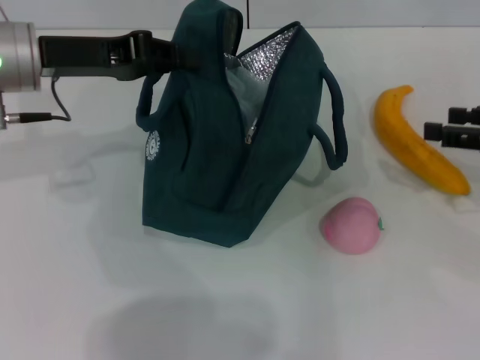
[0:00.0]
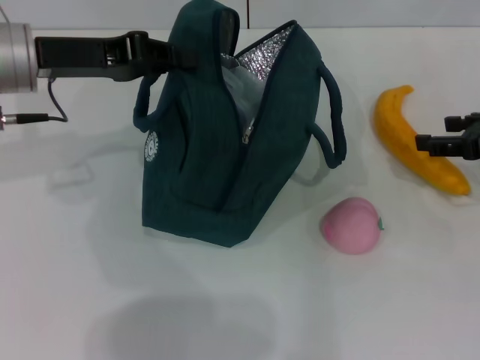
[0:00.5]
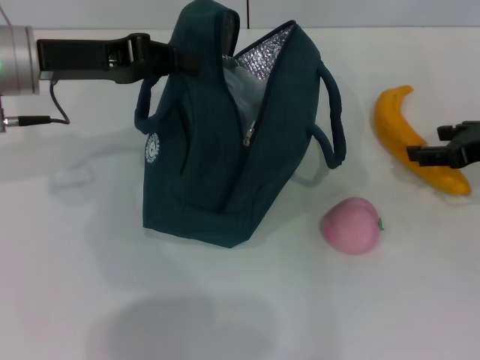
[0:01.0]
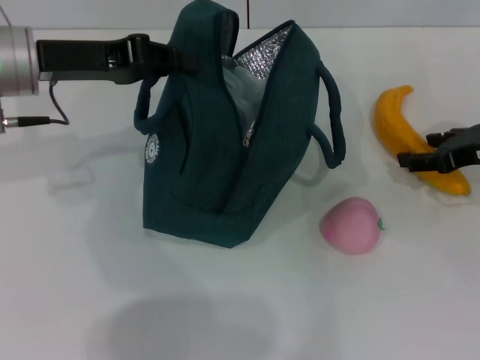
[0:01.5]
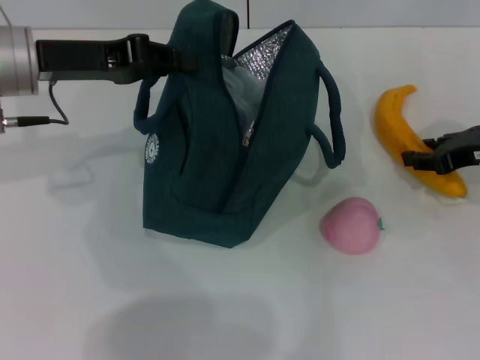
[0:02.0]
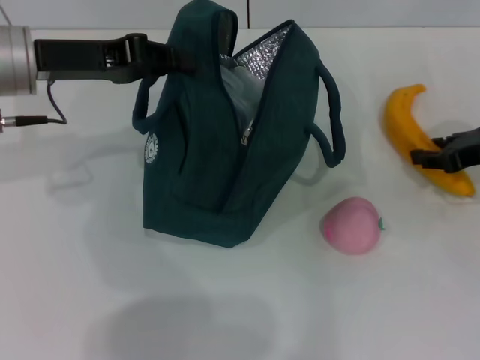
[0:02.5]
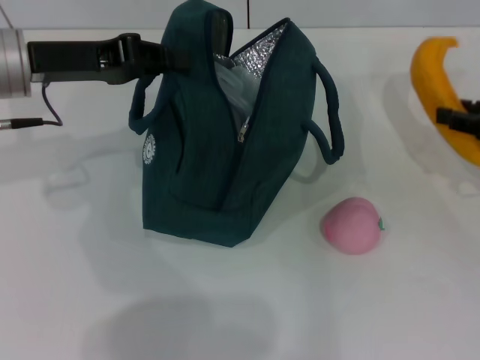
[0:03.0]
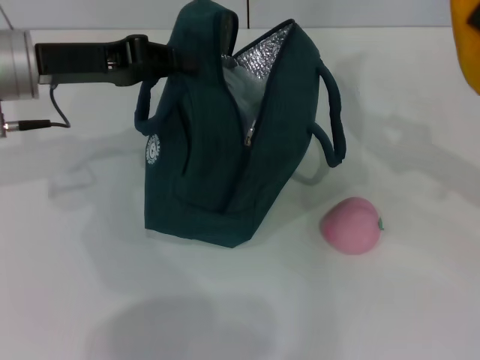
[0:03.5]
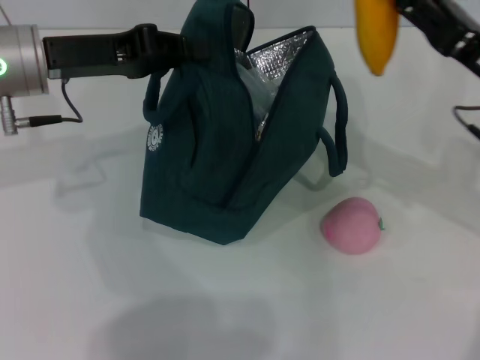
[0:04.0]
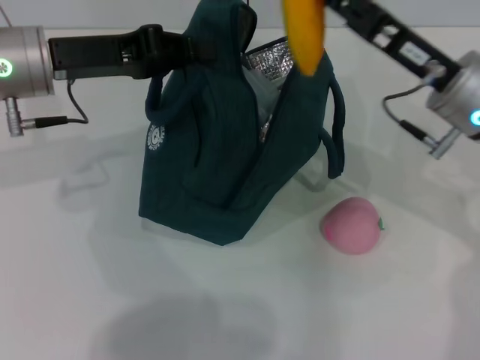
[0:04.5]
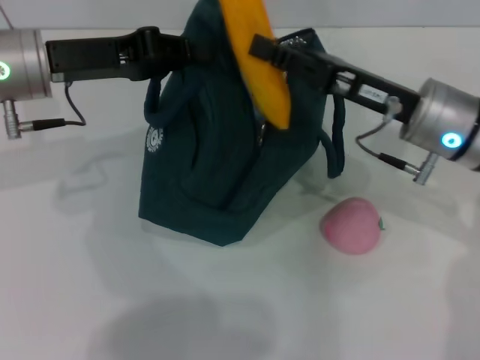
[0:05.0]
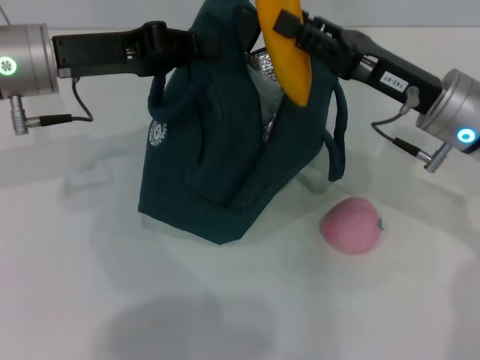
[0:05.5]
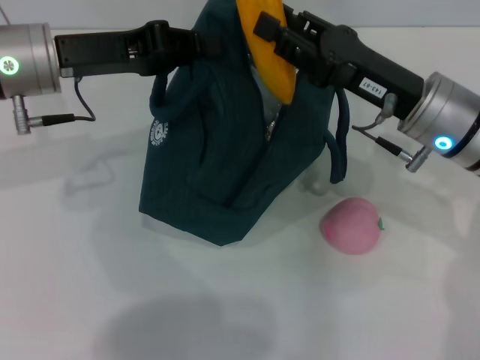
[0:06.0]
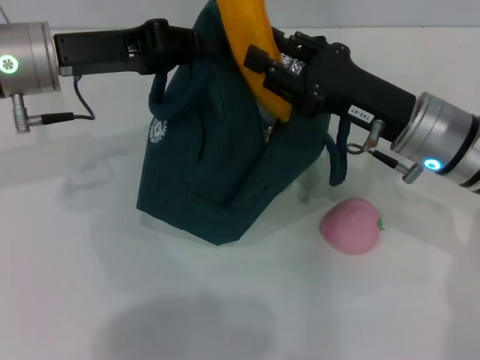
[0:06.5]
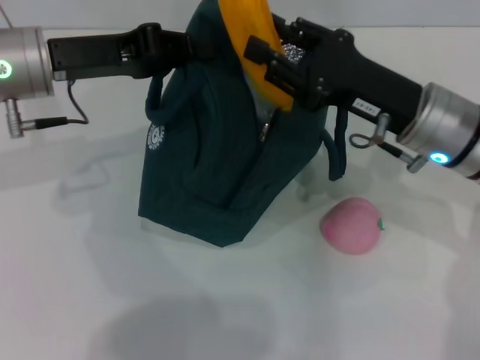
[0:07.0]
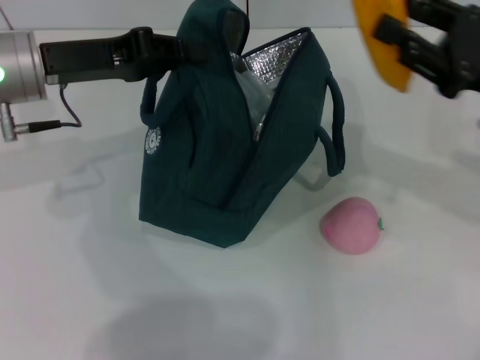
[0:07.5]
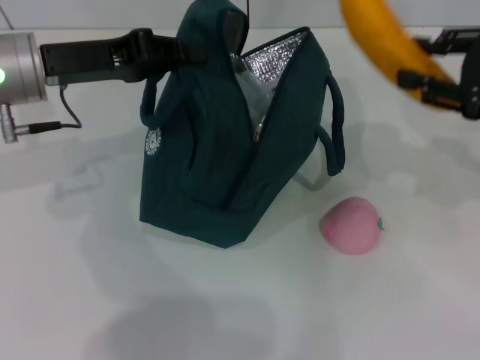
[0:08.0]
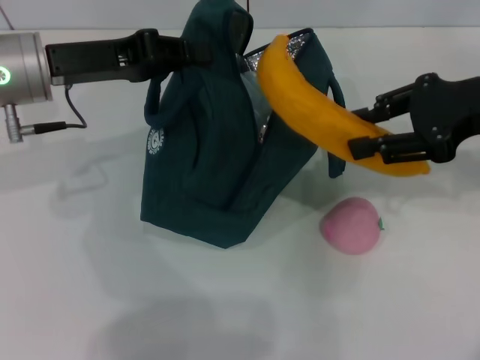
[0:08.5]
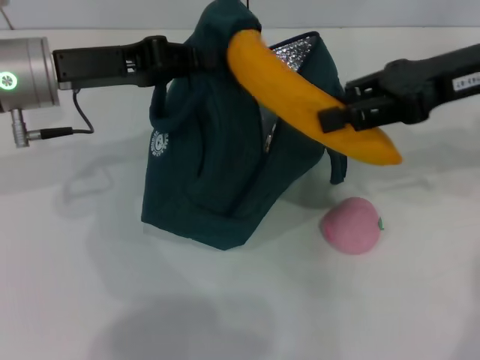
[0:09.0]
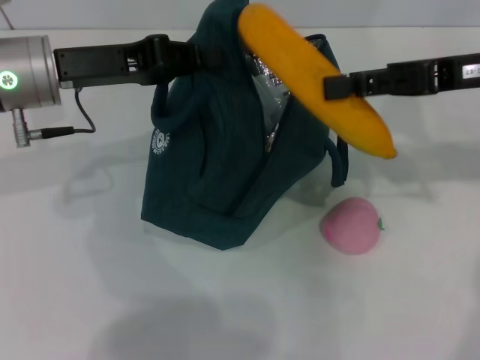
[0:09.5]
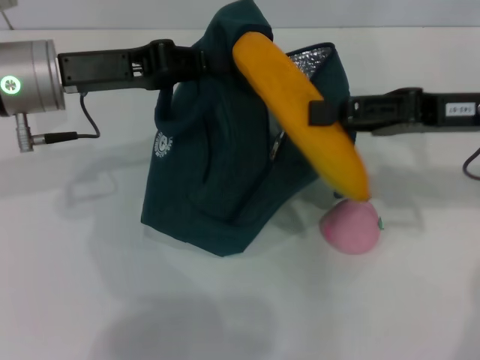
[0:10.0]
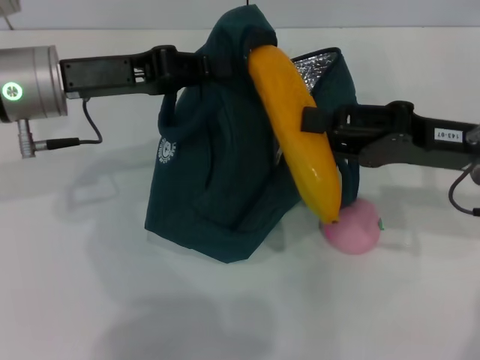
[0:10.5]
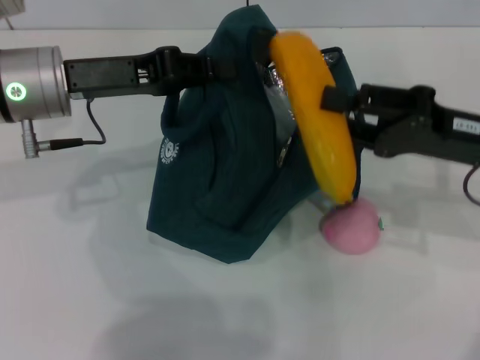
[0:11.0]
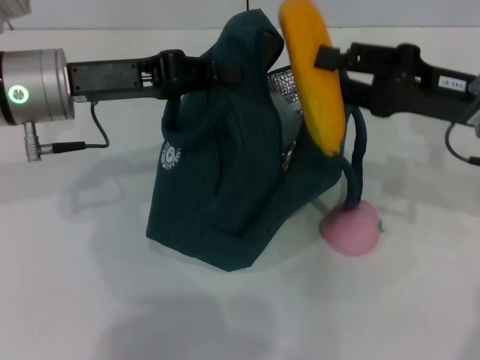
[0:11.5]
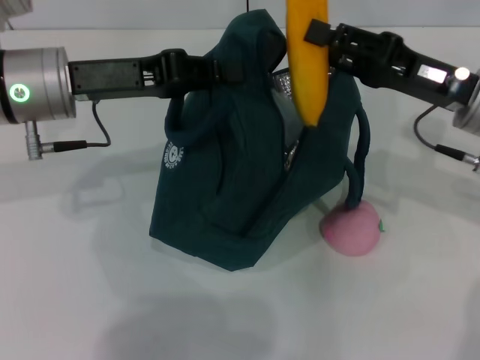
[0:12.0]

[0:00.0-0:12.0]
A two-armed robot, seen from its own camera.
0:00.0 to 0:02.0: The right gripper changes place by some 5 cm.
0:02.0 to 0:04.0: The right gripper ends up about 5 cm from where it was.
0:04.0 to 0:06.0: The right gripper goes approximately 10 cm to the left.
0:06.0 to 0:08.0: The right gripper shifts approximately 15 cm to the right and upward.
0:08.0 to 0:10.0: The right gripper is displaced to the left by about 5 cm.

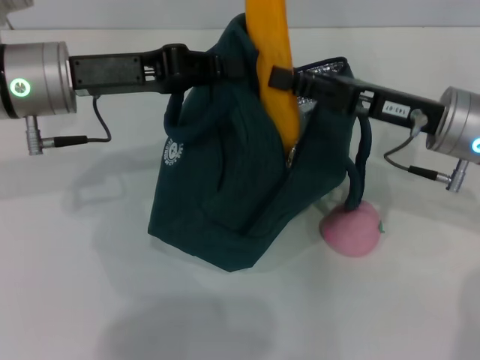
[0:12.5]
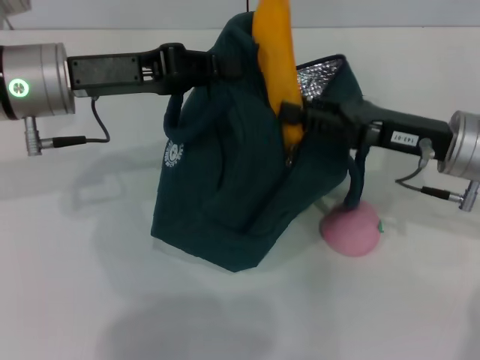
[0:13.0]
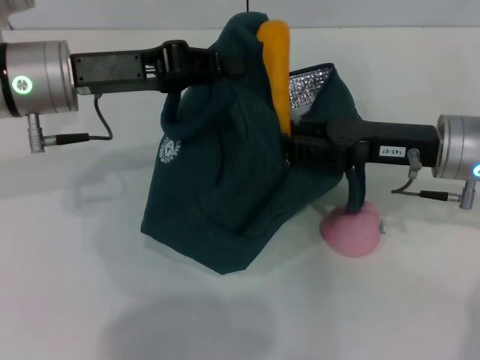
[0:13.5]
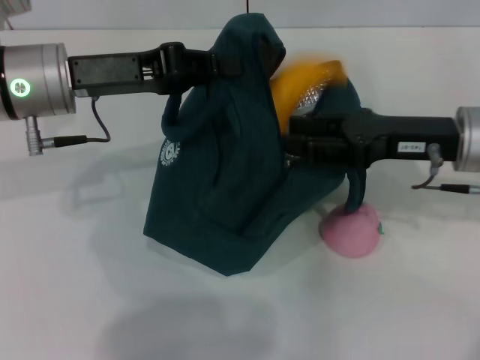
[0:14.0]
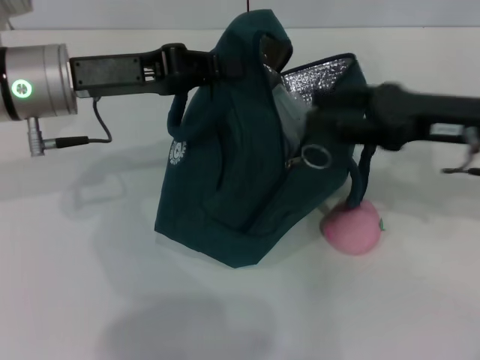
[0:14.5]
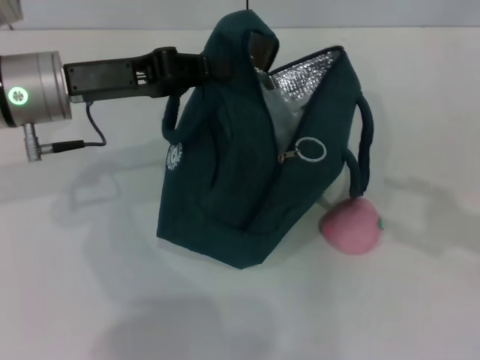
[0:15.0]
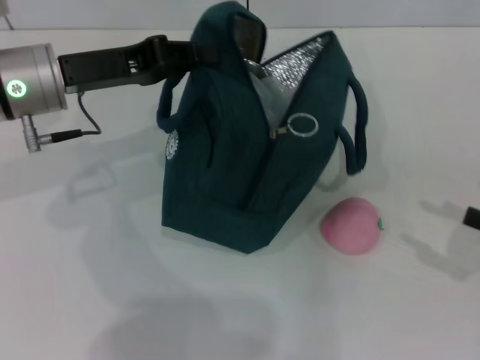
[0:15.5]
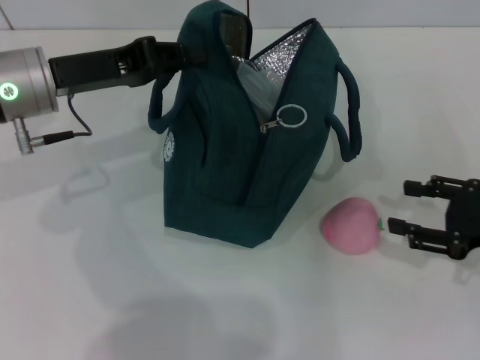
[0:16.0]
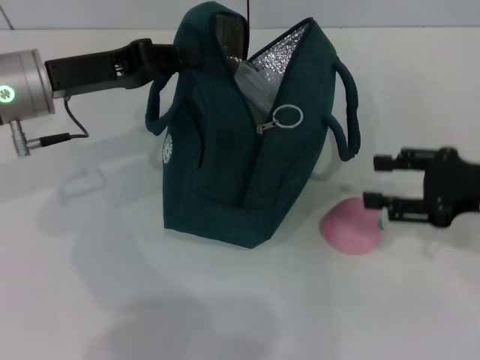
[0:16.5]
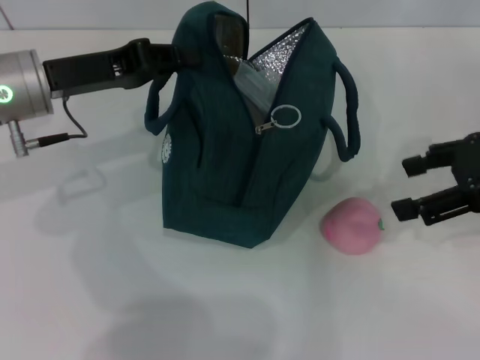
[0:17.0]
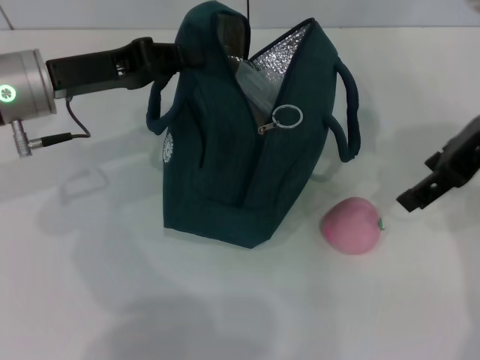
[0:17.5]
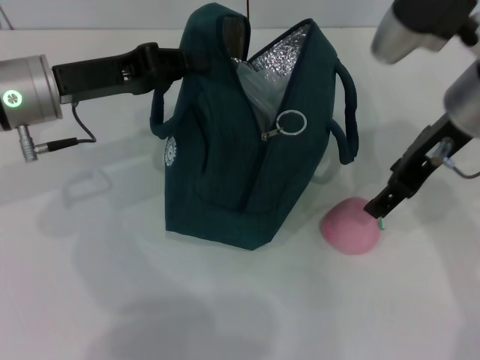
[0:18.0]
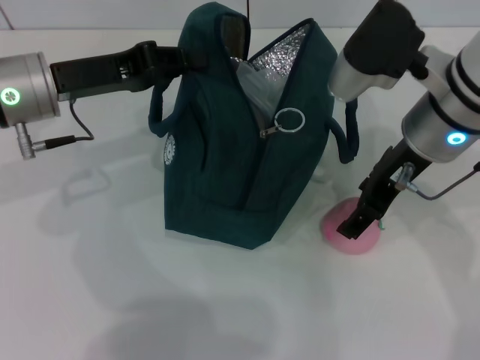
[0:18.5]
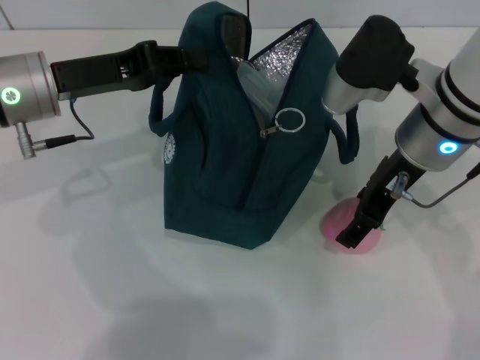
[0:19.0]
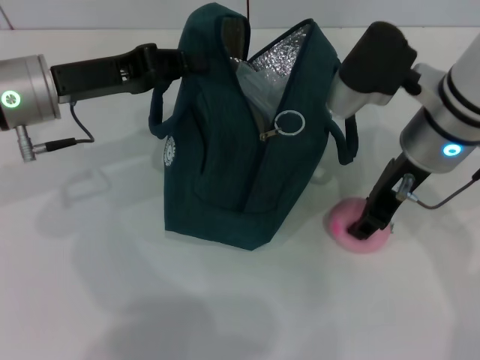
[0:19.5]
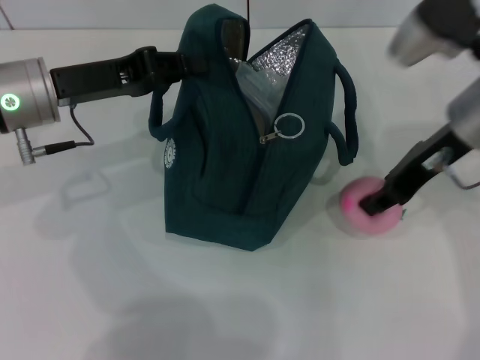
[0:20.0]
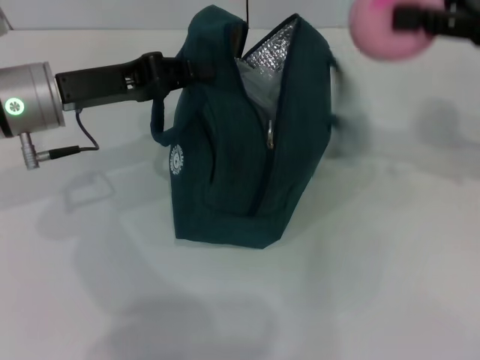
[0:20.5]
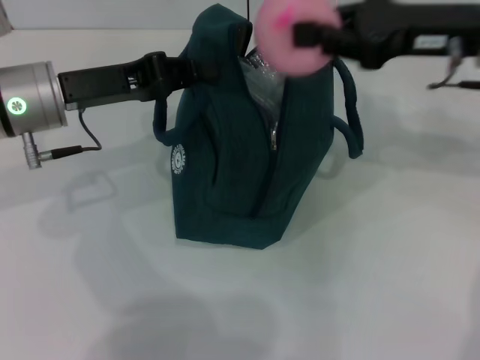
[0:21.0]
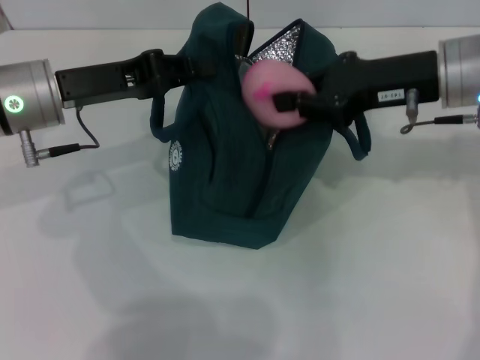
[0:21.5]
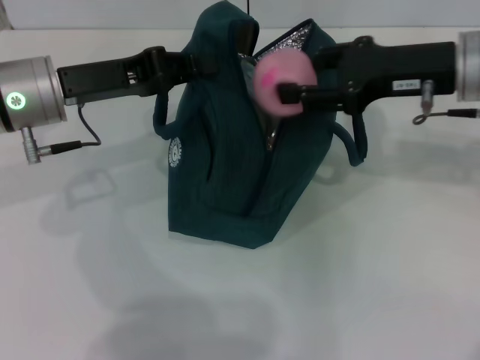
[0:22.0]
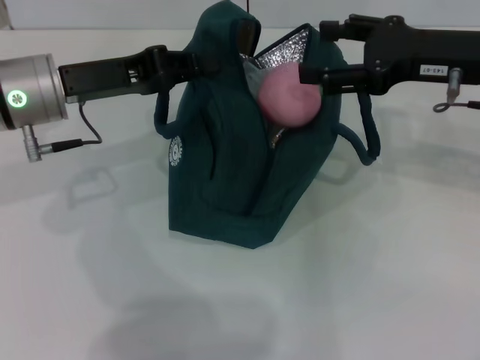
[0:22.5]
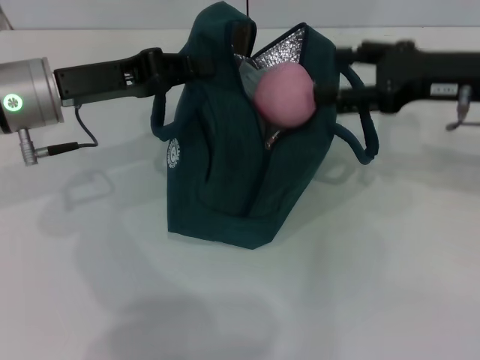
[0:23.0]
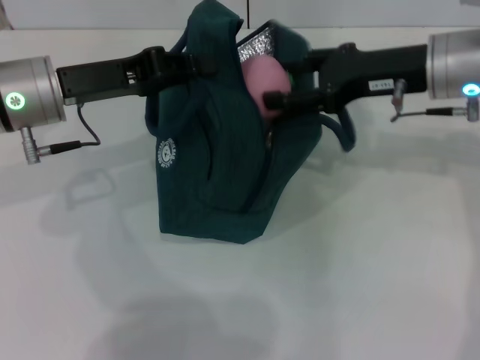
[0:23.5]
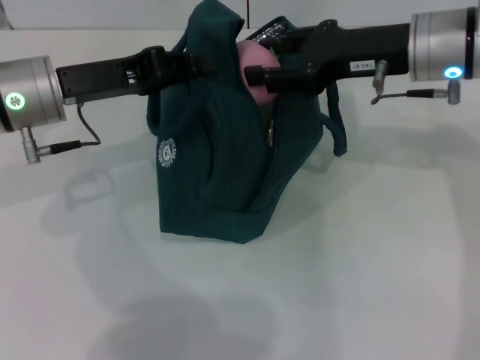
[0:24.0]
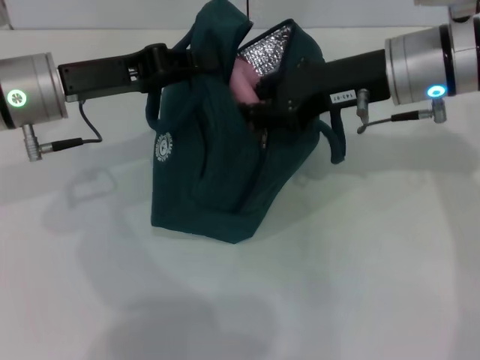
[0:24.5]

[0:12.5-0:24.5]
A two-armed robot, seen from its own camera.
Step, 0:14.5 to 0:19.5: Grab the peach with your right hand.
0:12.5 to 0:14.5: The right gripper shifts by approximately 5 cm.
0:14.5 to 0:16.5: The right gripper is displaced to the right by about 5 cm.
0:16.5 to 0:18.5: The right gripper shifts some 15 cm to the left and upward.
0:18.5 to 0:20.5: The right gripper shifts approximately 15 cm to the right and upward, and closes its fingers.
0:20.5 to 0:22.5: The right gripper travels to the left and downward by approximately 10 cm, and opens.
0:22.5 to 0:24.5: The right gripper is displaced to the left by some 10 cm, and closes its fingers.

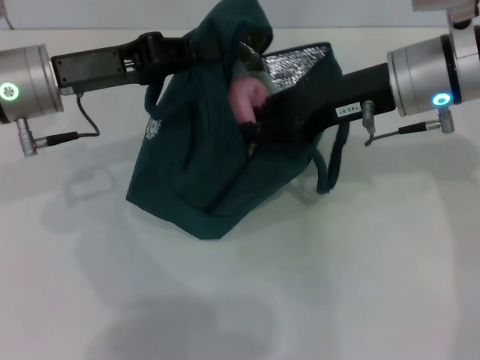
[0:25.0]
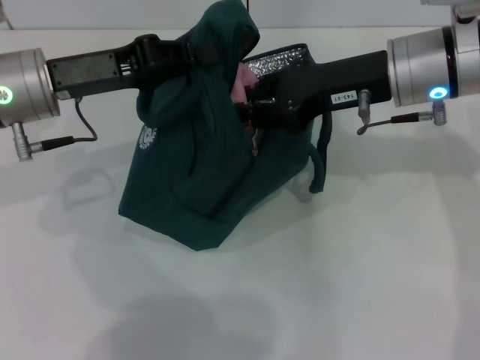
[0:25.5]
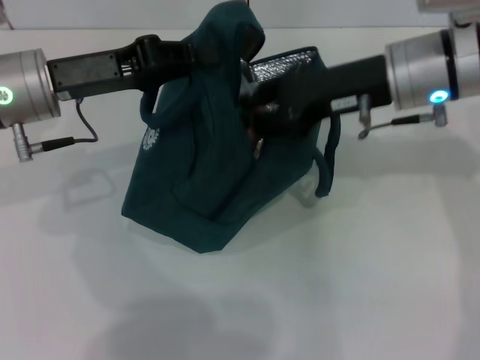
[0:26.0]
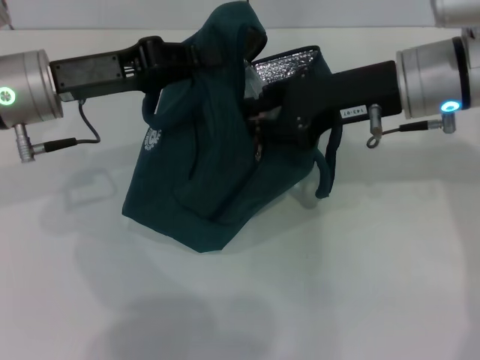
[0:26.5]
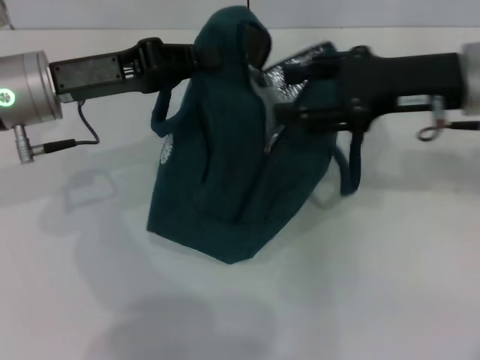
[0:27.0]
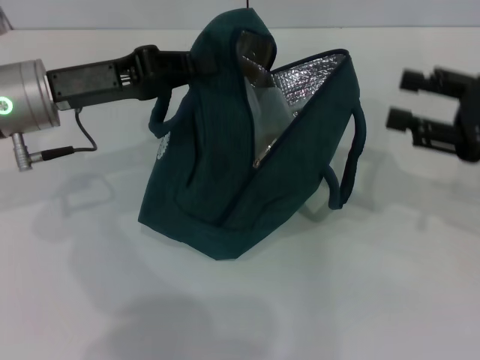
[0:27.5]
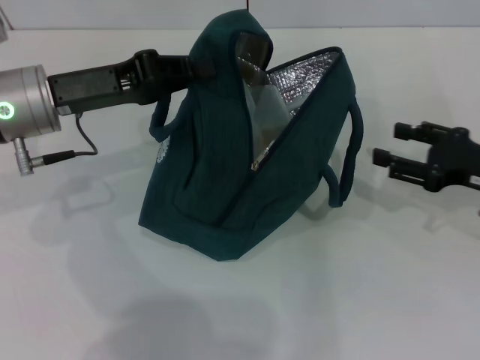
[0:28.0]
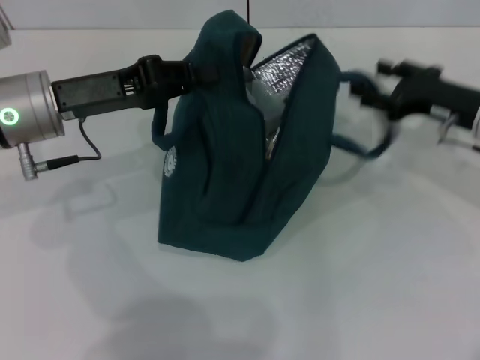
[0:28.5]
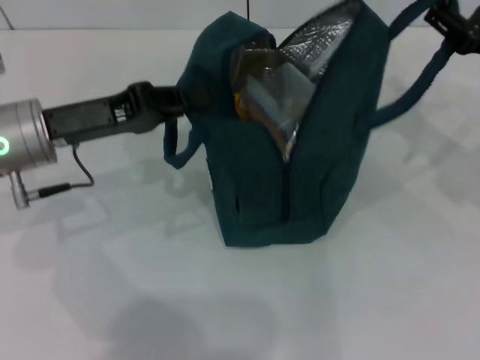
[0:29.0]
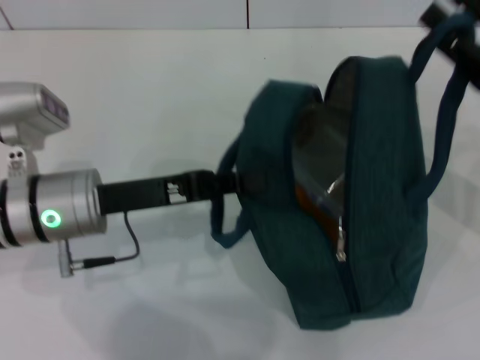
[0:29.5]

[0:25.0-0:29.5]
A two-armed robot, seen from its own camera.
0:25.0 to 0:27.0: The right gripper moves to the right, roughly 5 cm.
0:27.0 to 0:29.5: The right gripper travels to the right and downward by some 10 cm, while the left gripper heads backward and downward, covering roughly 10 cm.
